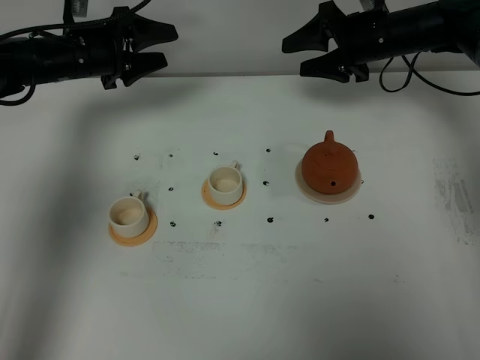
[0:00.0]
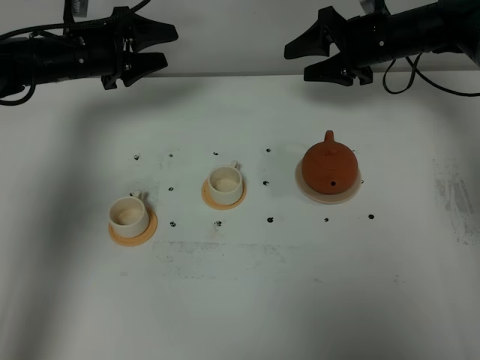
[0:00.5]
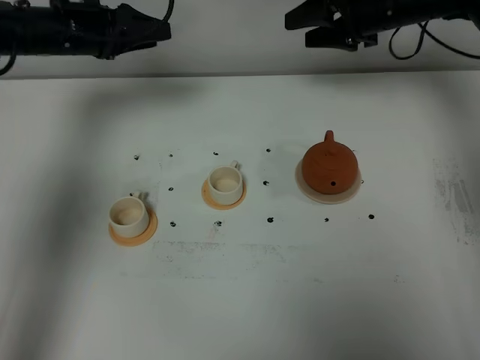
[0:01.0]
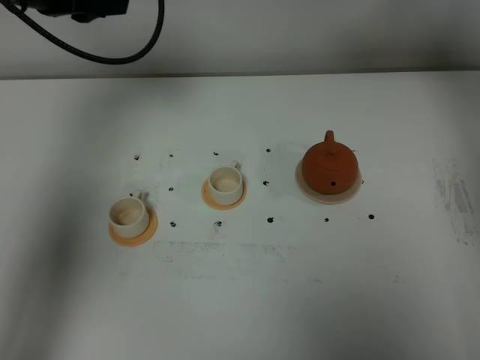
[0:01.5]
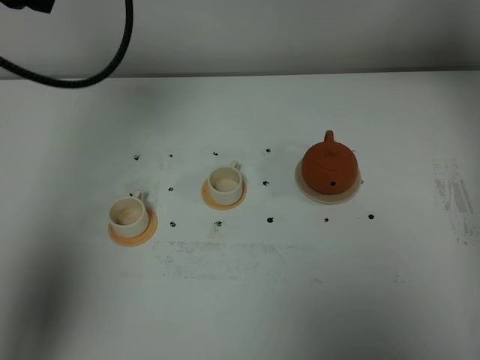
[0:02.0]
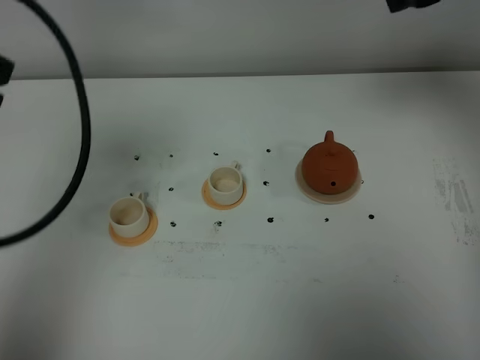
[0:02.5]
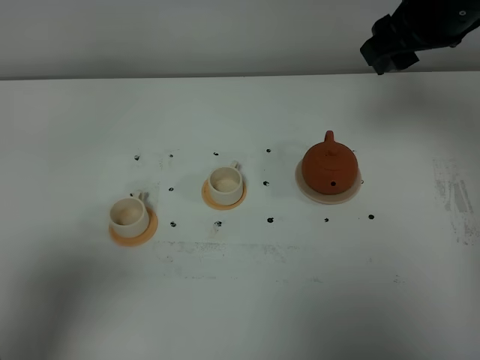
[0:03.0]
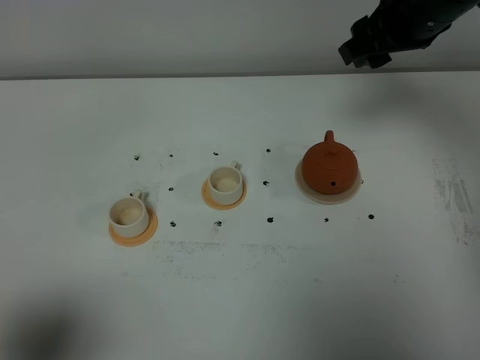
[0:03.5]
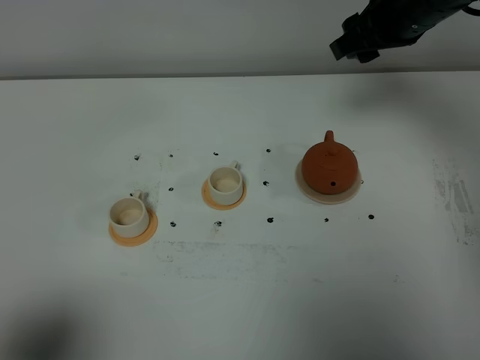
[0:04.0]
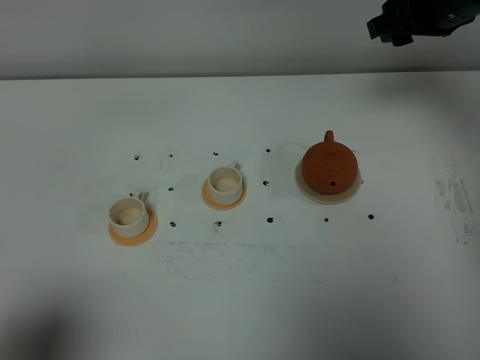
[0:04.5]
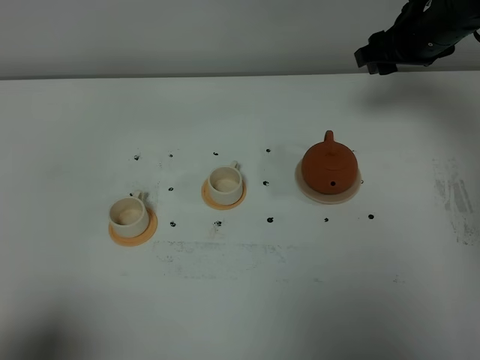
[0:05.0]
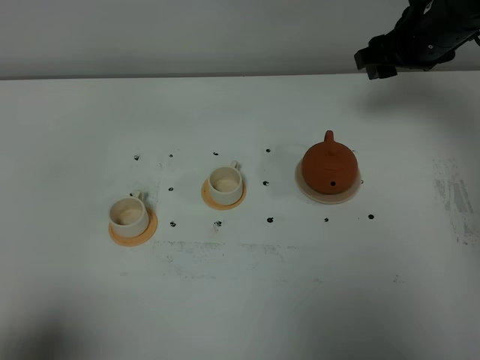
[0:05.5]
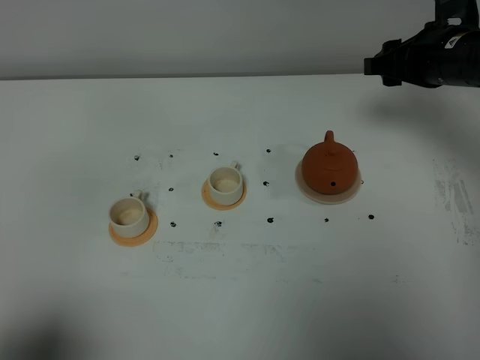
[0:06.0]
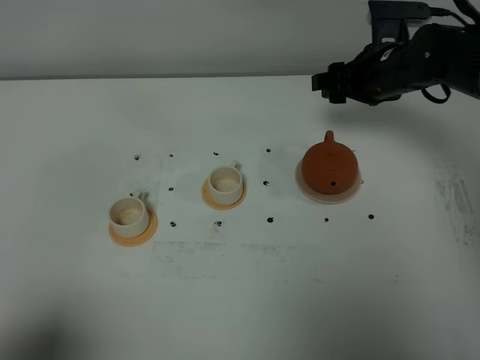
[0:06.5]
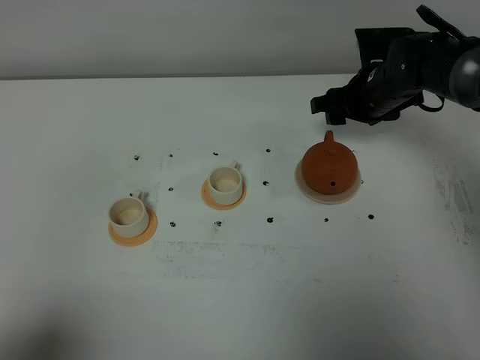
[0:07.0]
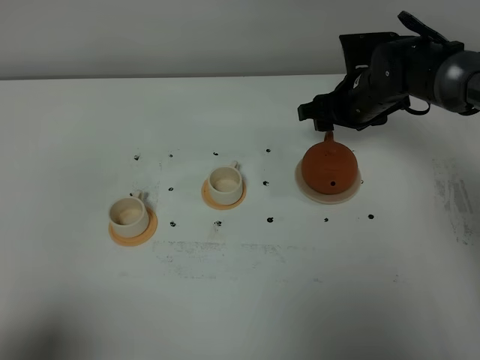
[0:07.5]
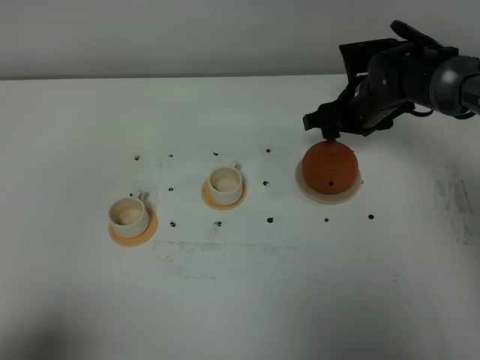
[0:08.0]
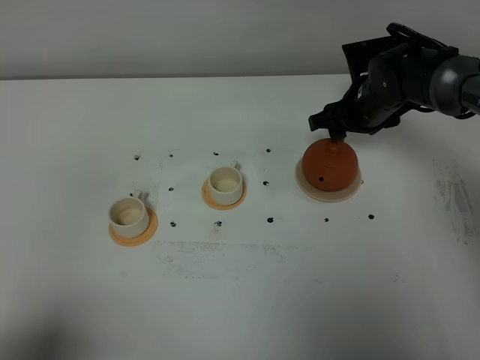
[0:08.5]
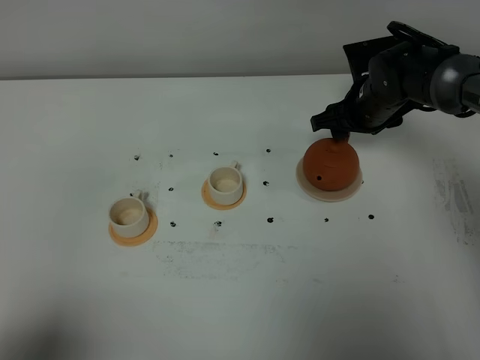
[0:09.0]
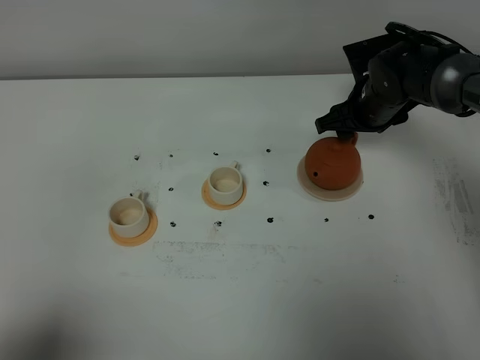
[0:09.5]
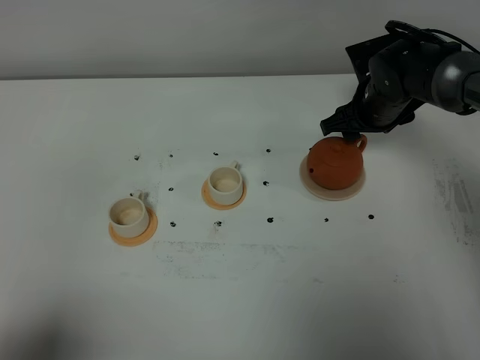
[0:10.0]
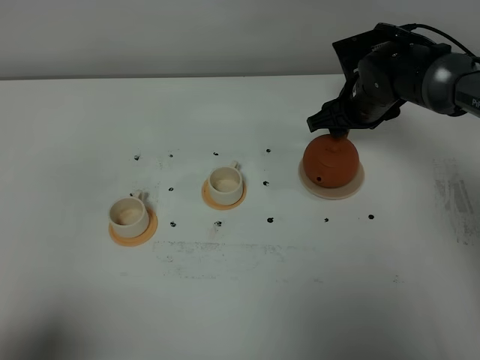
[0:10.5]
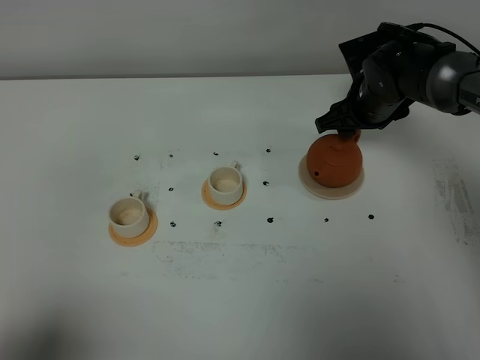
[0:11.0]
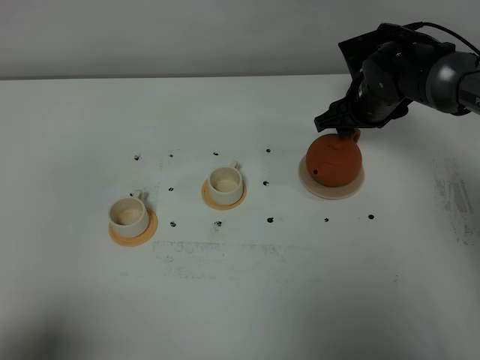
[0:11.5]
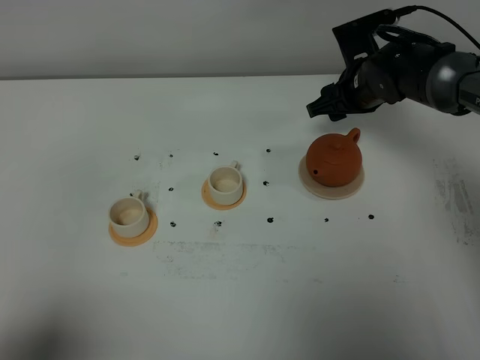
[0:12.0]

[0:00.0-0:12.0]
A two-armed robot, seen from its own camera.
Task of the whole recording: grasp the brown teapot and pour the tea into the two white teacups one by one, put the brown teapot back in its original place.
0.0 to 2.0 s: The right gripper is displaced upward by roughly 20 cm; the left gripper shifts approximately 30 cm upward and backward.
2.0 to 4.0 s: The right gripper shifts roughly 10 cm downward and to the left. The left gripper goes roughly 35 cm backward and downward, and closes.
4.0 to 6.0 s: The right gripper heads downward, covering roughly 5 cm.
6.0 to 8.0 s: The right gripper goes roughly 10 cm downward and to the left.
8.0 to 12.0 s: The grippers move only a little.

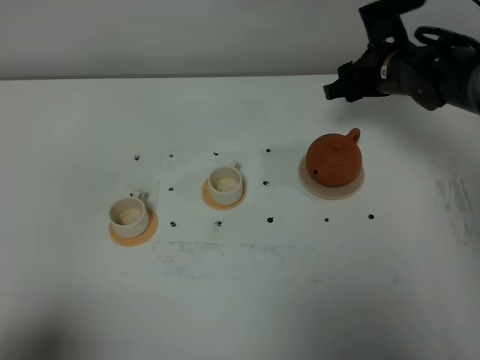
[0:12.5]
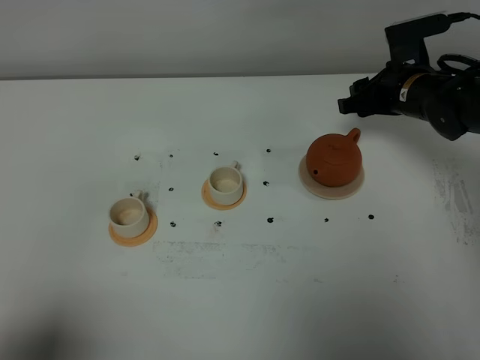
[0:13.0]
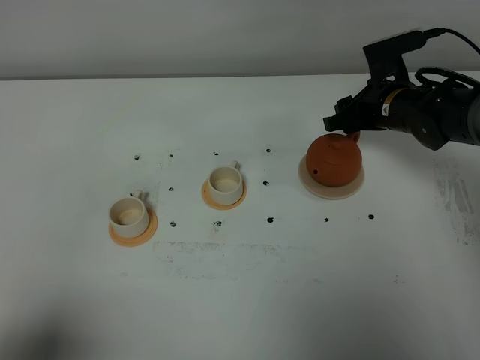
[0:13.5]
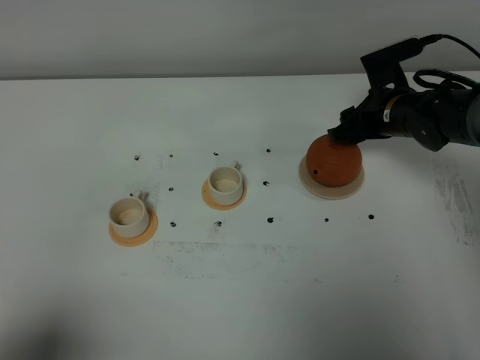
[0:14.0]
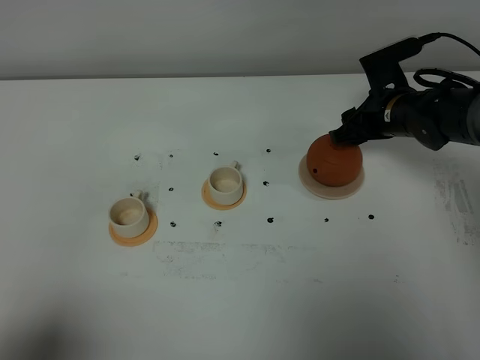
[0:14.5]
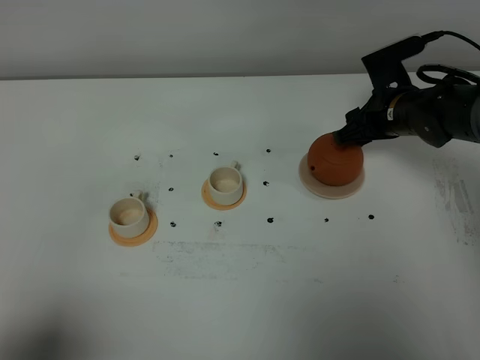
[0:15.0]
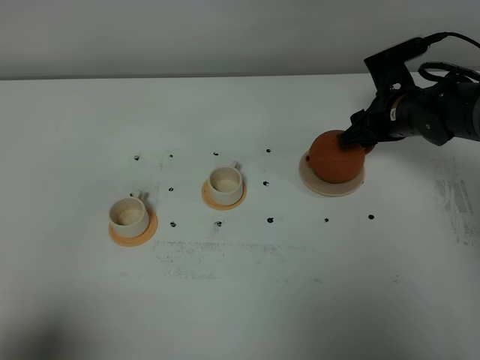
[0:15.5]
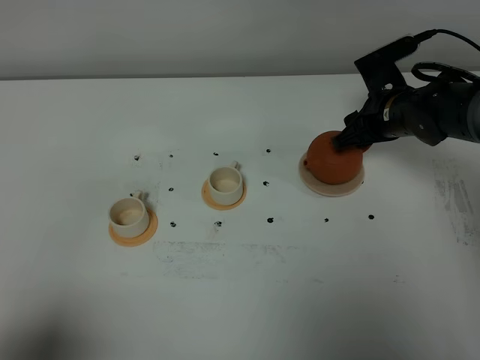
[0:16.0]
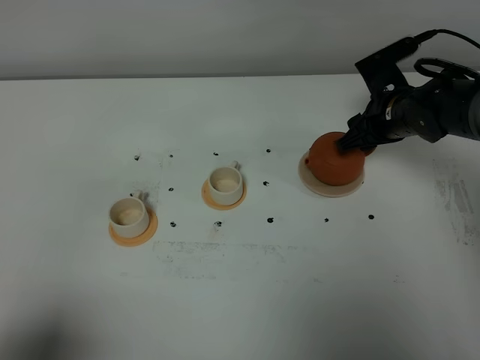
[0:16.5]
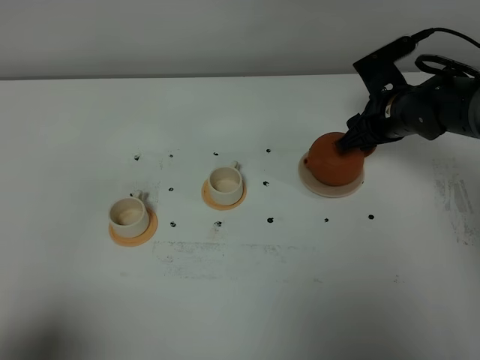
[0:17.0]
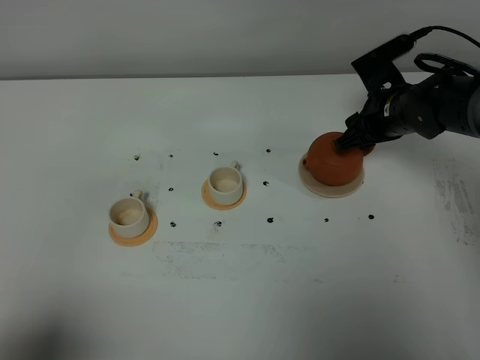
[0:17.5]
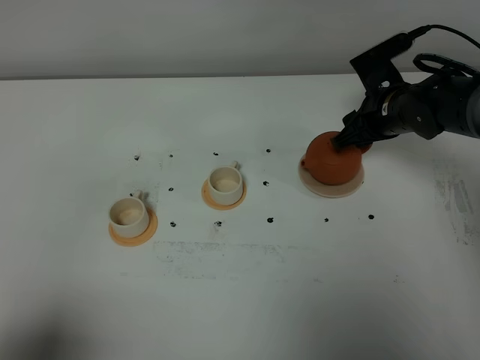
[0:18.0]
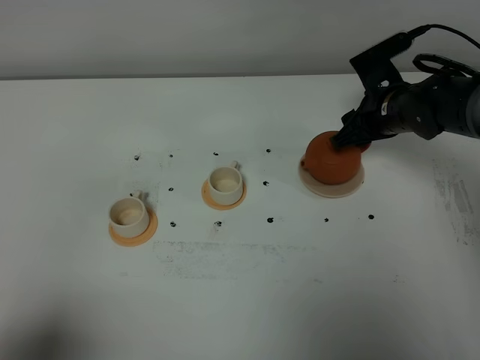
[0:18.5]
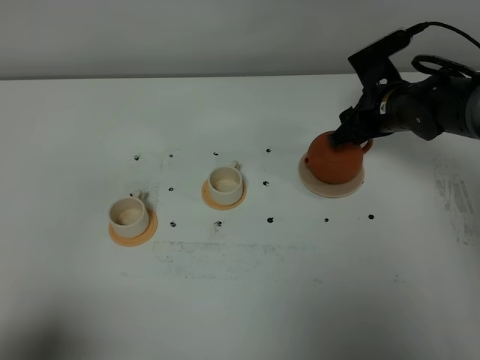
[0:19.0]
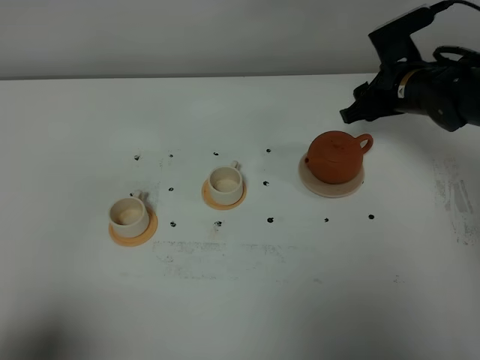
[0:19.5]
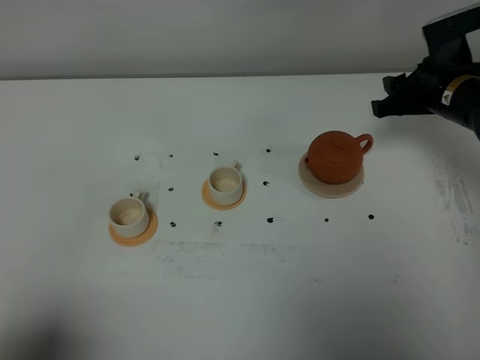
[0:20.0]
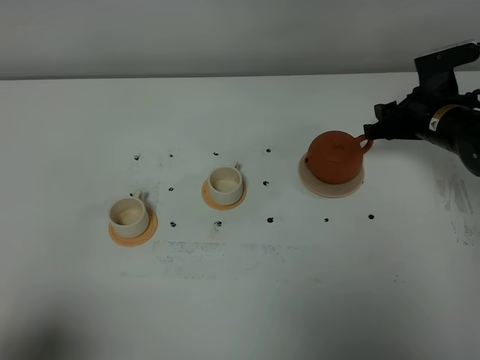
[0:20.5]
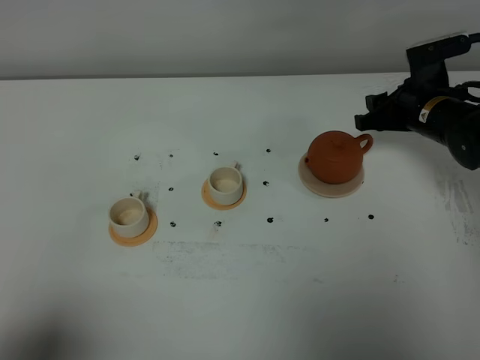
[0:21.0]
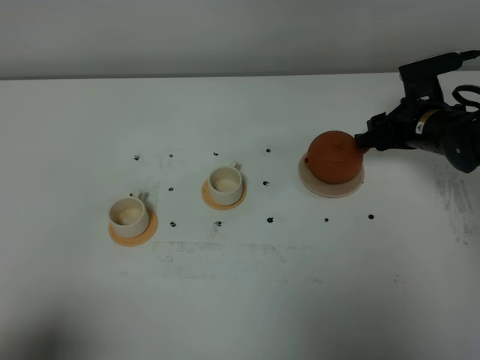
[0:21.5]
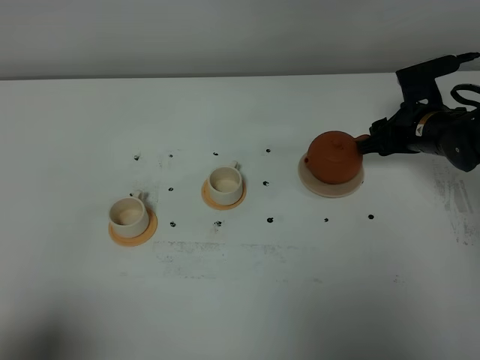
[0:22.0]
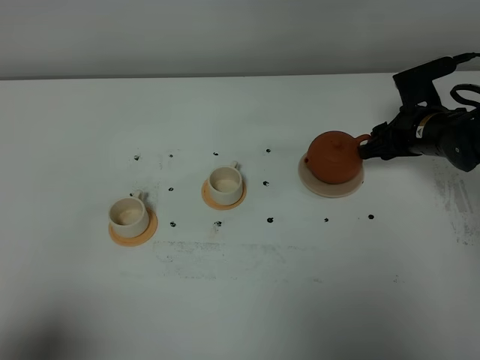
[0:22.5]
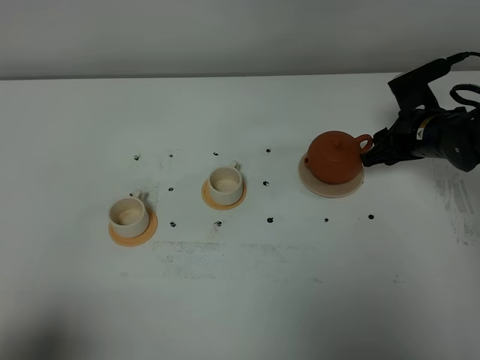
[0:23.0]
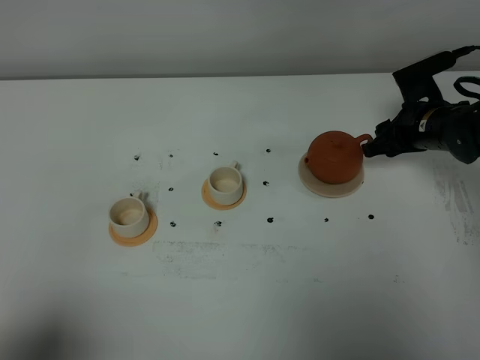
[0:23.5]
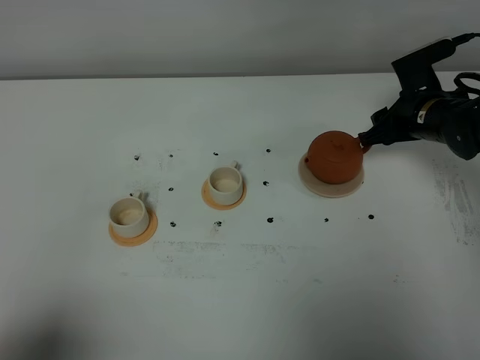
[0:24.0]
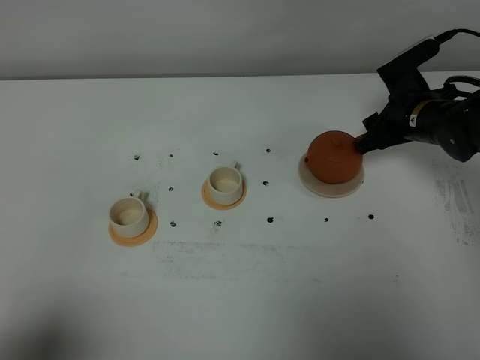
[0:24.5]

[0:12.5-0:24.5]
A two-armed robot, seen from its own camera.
Task of the whole recording: grasp the brown teapot and pour the tea into the two white teacups one by one, put the brown teapot back in its original place.
12.5 to 14.5 s: The right gripper heads downward, covering some 5 cm.
14.5 to 16.5 s: The grippers stay close to where they were, moving slightly.
16.5 to 18.5 s: Neither gripper changes place.
18.5 to 20.5 s: The right gripper is displaced to the right by approximately 5 cm.
20.5 to 24.5 s: The grippers stay close to where they were, moving slightly.

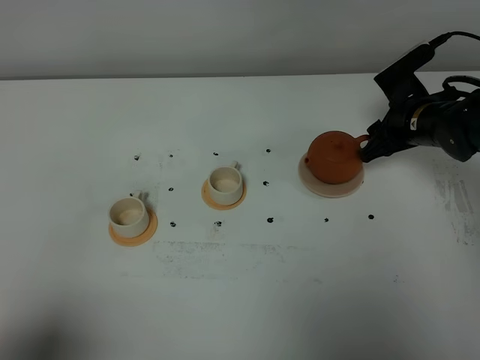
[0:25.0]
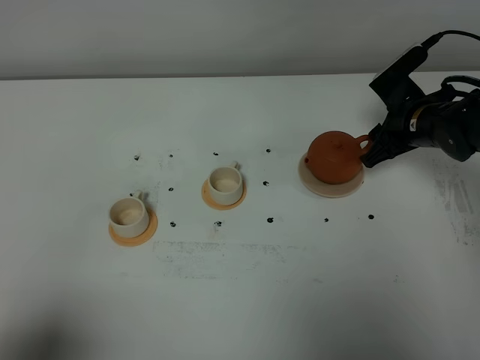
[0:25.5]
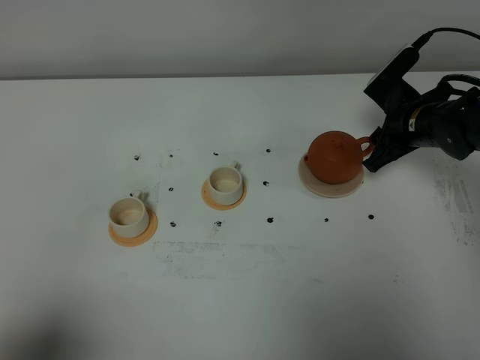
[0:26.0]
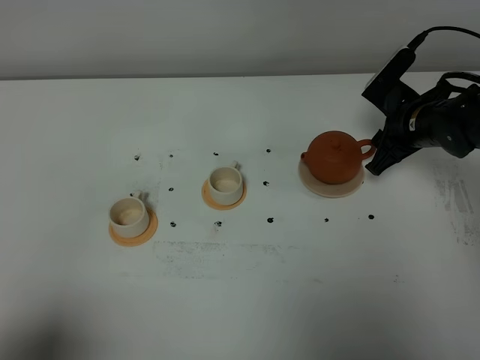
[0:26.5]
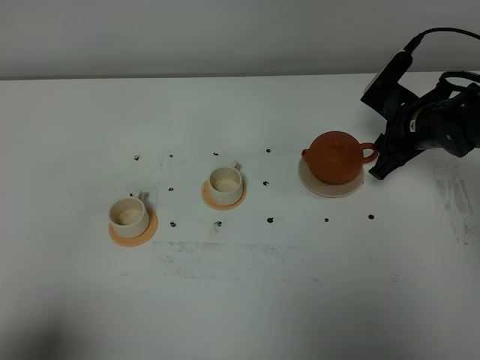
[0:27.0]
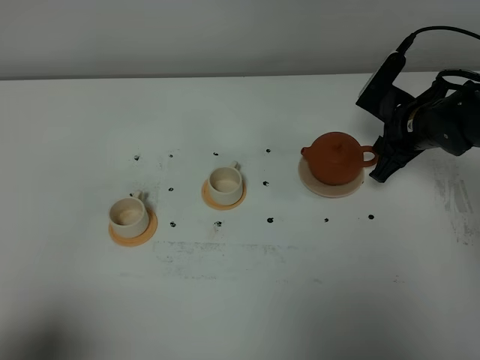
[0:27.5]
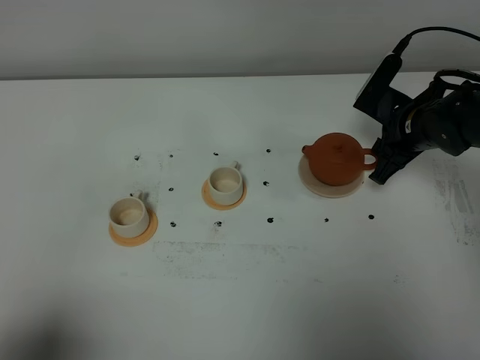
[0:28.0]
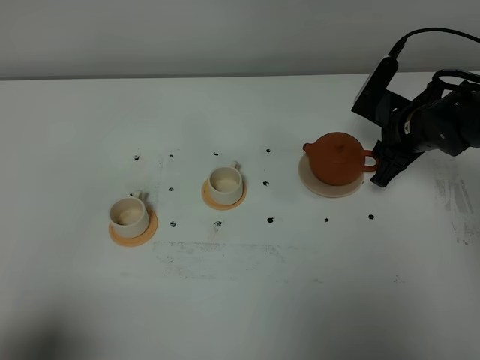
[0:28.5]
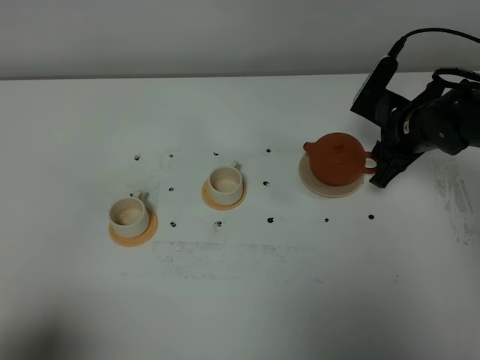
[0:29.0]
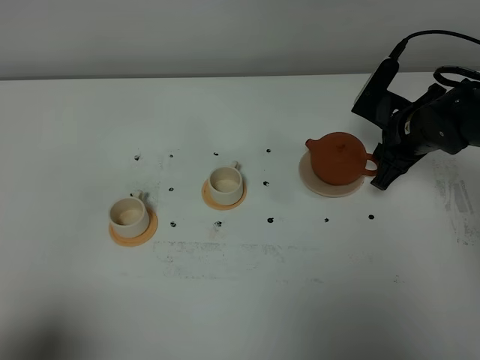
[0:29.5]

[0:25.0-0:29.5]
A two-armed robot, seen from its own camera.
Task of the whole recording: grasp the brown teapot and pour the tea into the two white teacups one by one, put the brown teapot back in its original place.
25.0 to 27.0 s: There are only small adjustments of the grippers.
27.0 to 29.5 s: The grippers make only small movements.
